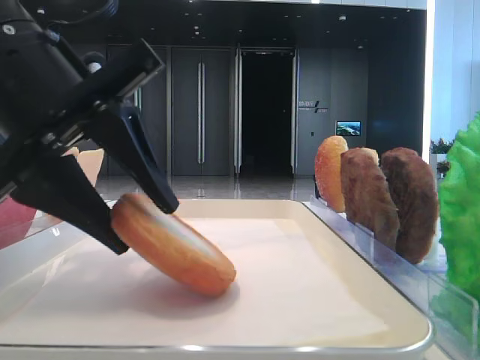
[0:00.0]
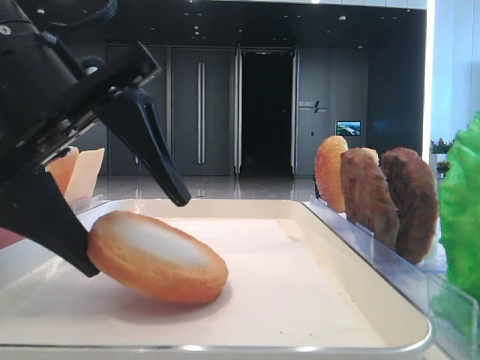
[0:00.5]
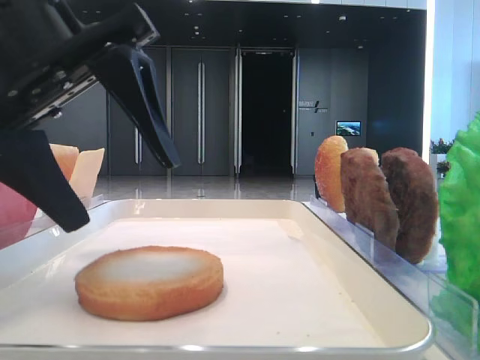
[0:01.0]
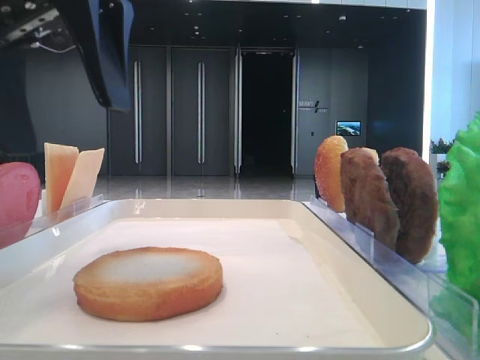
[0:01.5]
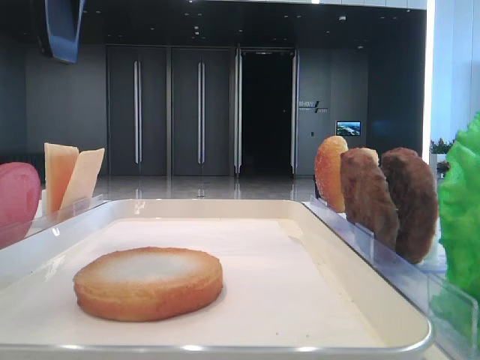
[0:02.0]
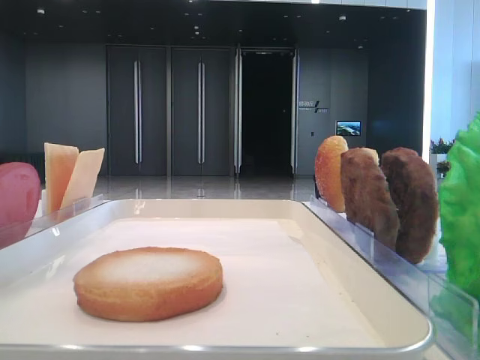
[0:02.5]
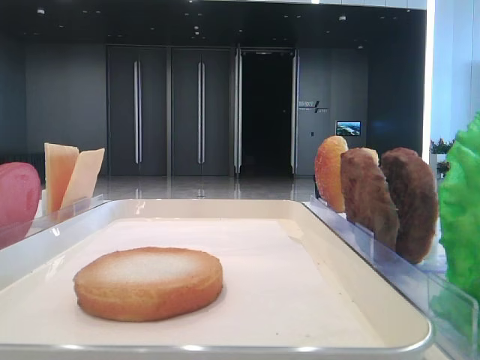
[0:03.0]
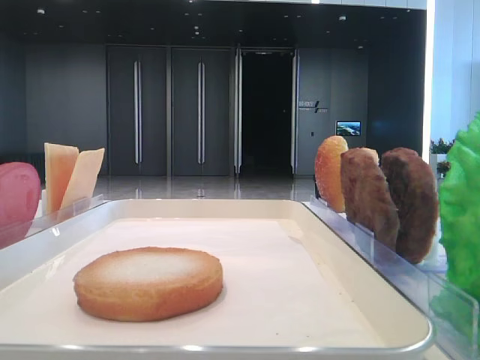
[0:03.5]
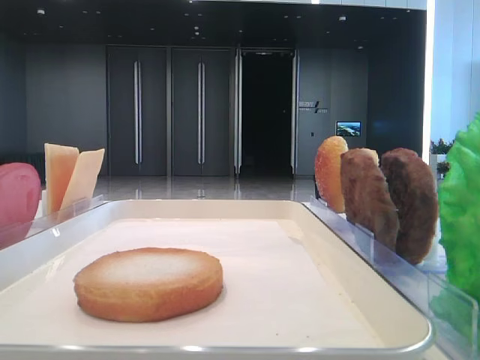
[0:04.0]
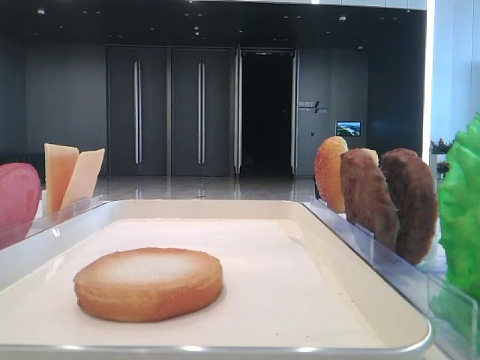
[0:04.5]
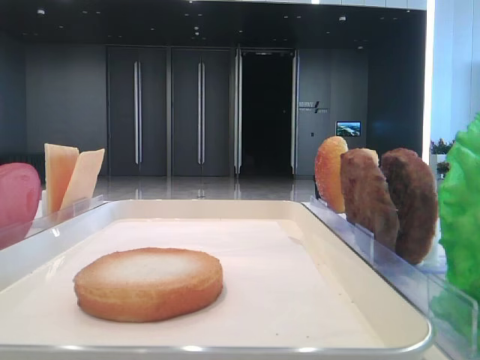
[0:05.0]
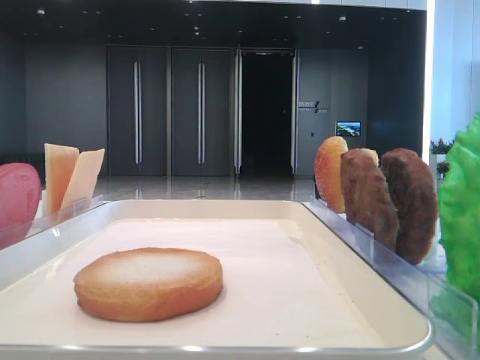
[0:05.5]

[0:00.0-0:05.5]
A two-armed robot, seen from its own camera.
0:00.0 to 0:02.0: The left gripper travels upward by some 15 cm, and opens up.
0:02.0 to 0:03.5: The left gripper shifts some 20 cm to the left.
